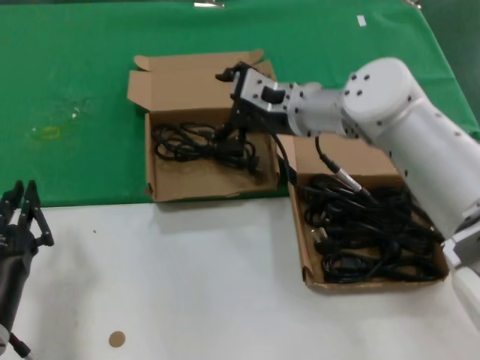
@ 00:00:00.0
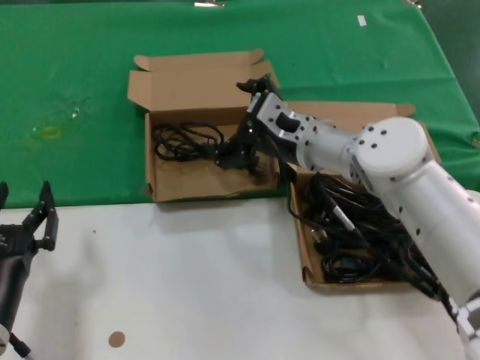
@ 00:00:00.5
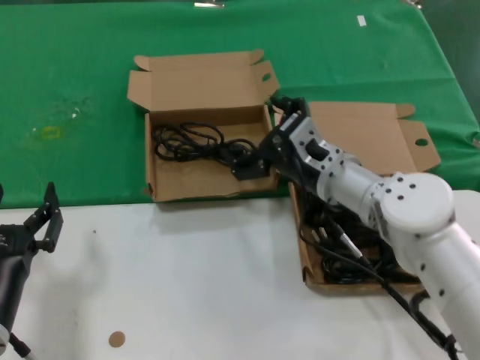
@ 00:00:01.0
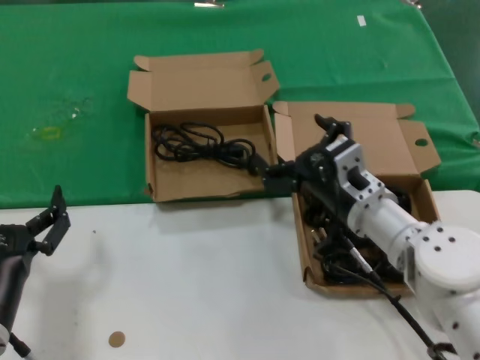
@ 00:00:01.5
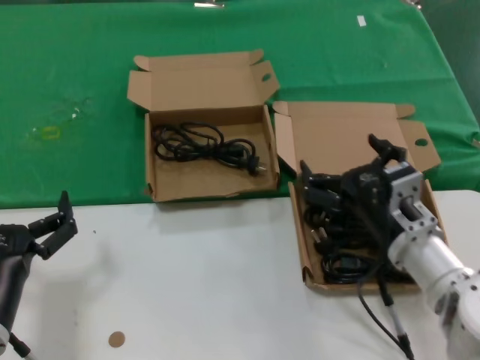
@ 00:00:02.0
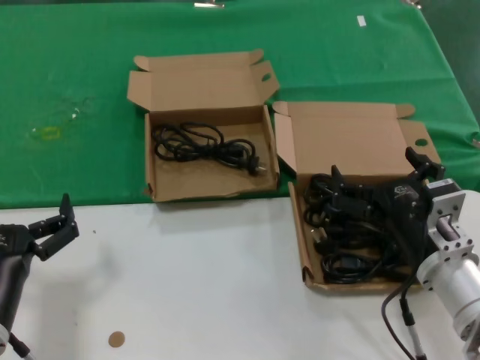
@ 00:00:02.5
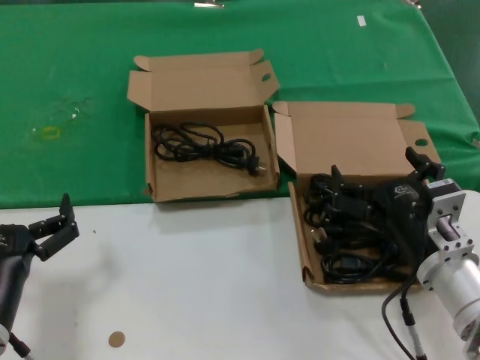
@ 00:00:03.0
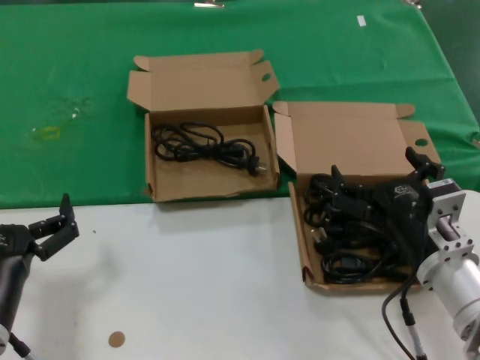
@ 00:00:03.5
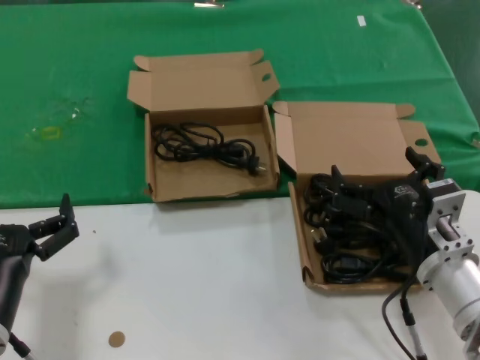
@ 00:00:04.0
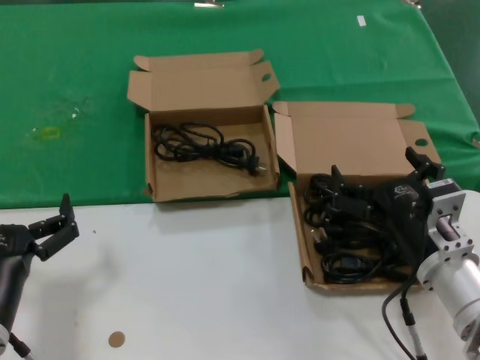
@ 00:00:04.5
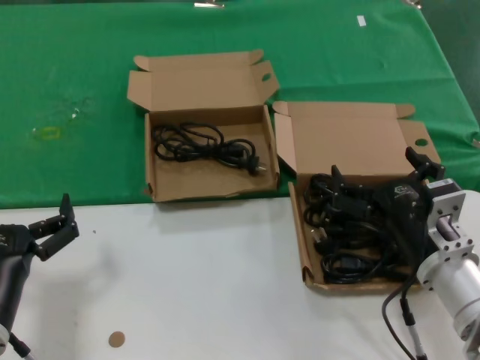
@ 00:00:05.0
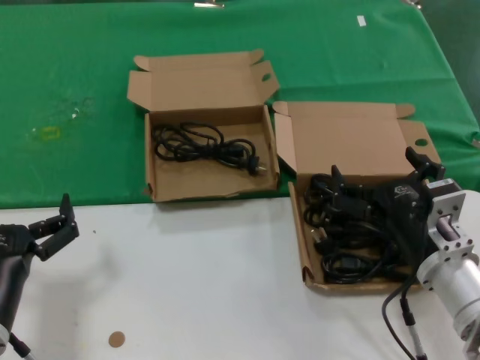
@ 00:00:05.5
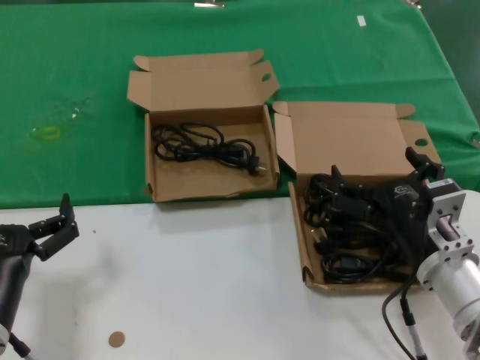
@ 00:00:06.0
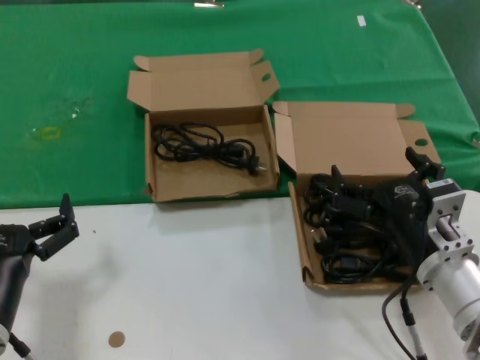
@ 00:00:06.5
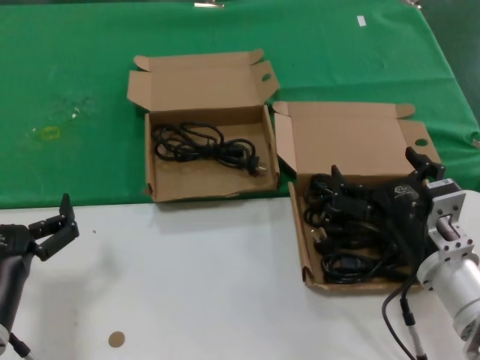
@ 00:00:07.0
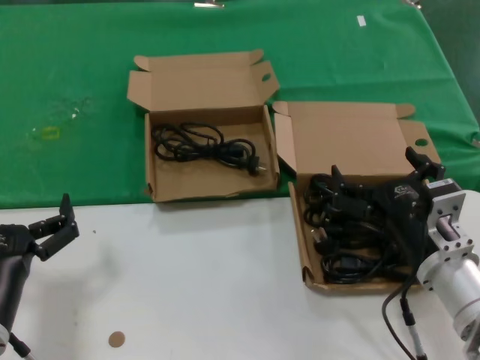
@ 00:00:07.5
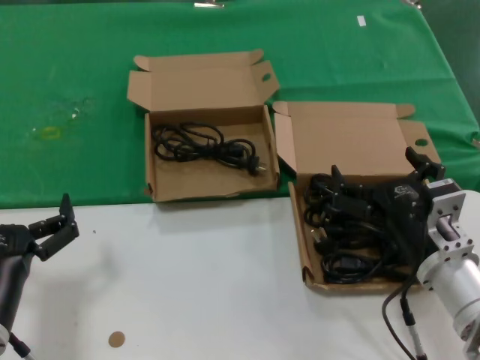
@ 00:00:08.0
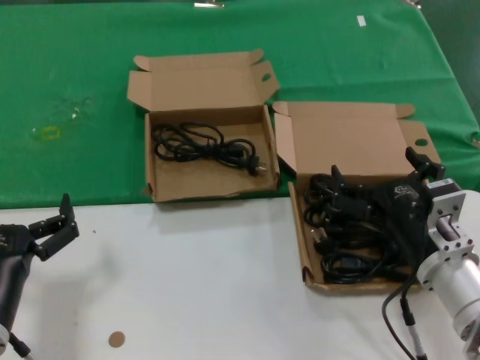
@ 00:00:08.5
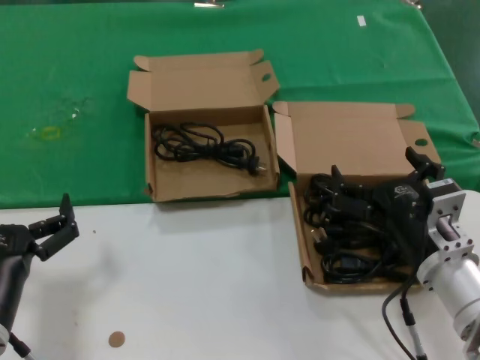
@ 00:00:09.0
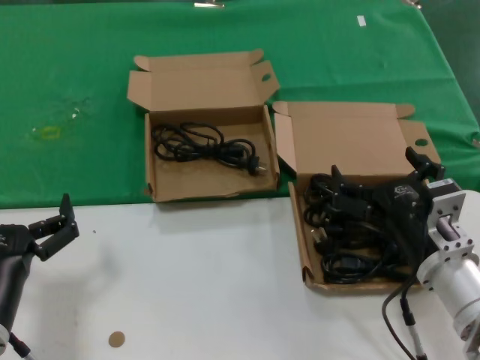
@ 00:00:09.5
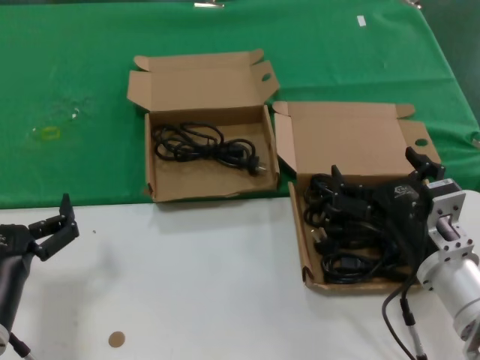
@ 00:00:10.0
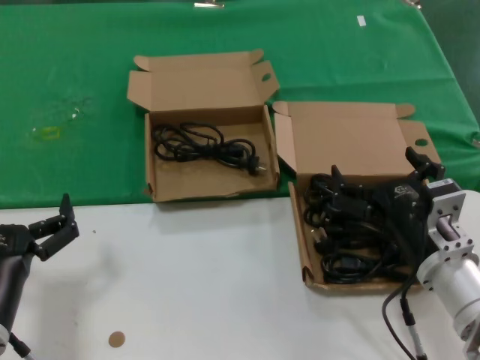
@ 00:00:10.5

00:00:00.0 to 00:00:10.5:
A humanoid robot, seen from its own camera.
Task of the whole recording: take the parts from the box containing them and put them into an empty box.
00:00:00.0 to 00:00:02.0: The right hand is displaced backward, downward and to the right by roughly 25 cm.
00:00:02.0 to 00:00:04.0: The hands make only small movements.
00:00:04.0 to 00:00:10.5: Neither hand changes place.
